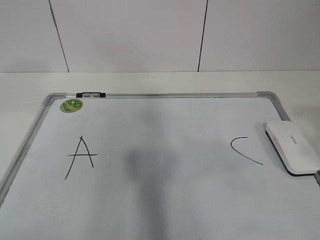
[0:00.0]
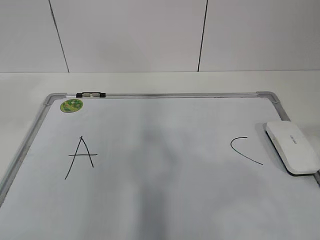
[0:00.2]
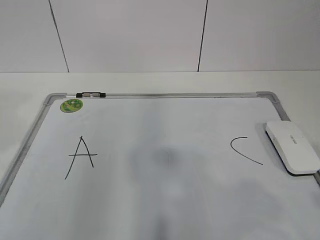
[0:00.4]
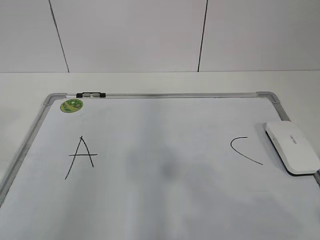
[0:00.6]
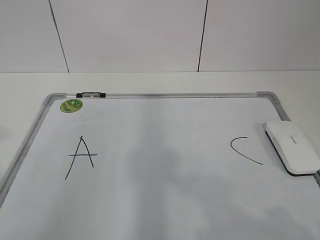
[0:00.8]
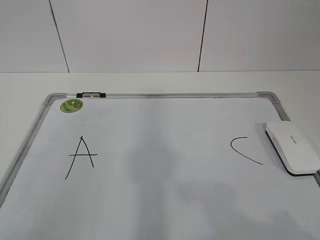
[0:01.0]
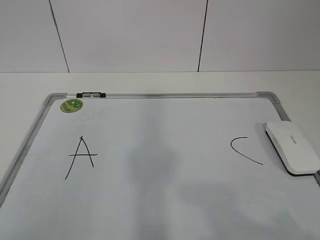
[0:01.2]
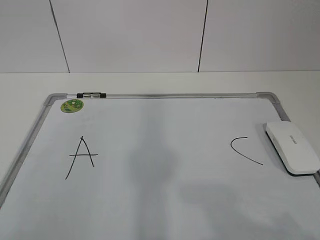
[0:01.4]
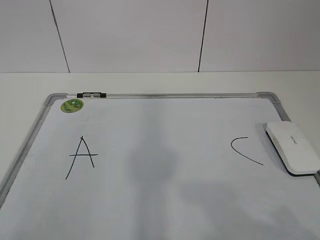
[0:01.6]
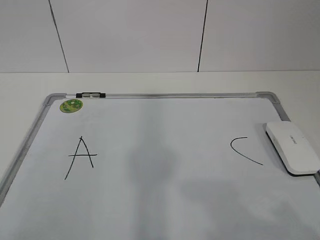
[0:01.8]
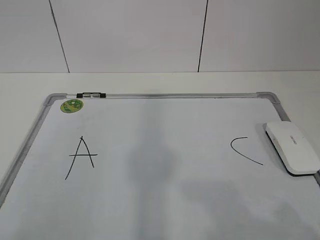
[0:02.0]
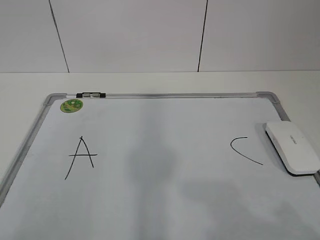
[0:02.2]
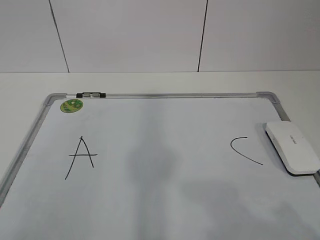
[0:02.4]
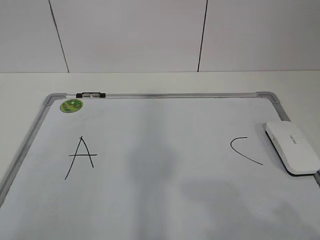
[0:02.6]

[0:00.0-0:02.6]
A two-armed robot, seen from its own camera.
Task of the whole recording: pick up the eraser on the blackboard and erase the letter "B".
0:00.0 to 0:01.2: The left gripper travels backward by roughly 25 cm. The right gripper is displaced downward and backward by about 15 cm.
